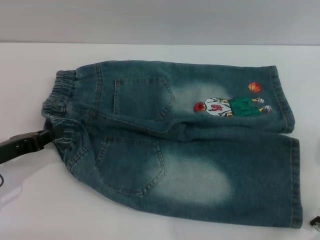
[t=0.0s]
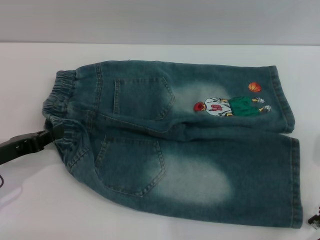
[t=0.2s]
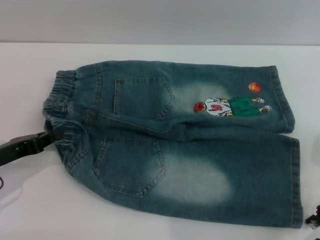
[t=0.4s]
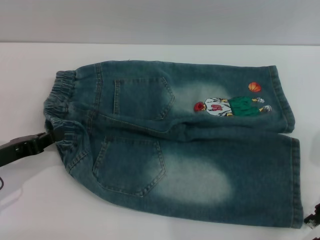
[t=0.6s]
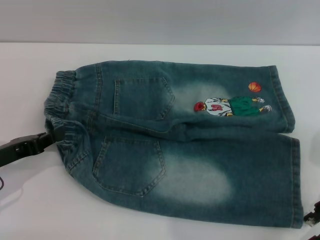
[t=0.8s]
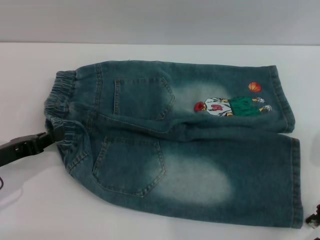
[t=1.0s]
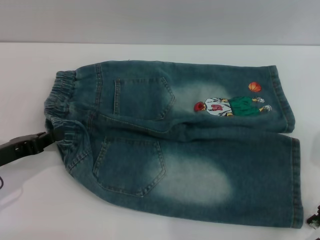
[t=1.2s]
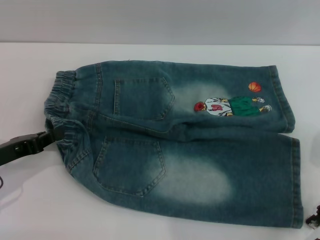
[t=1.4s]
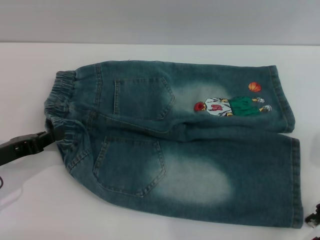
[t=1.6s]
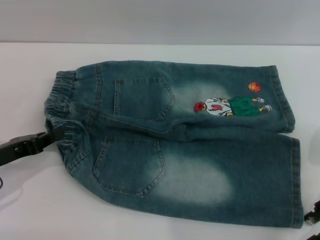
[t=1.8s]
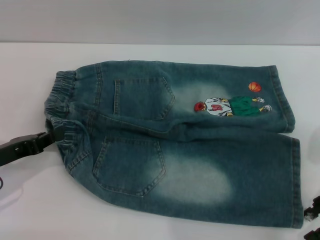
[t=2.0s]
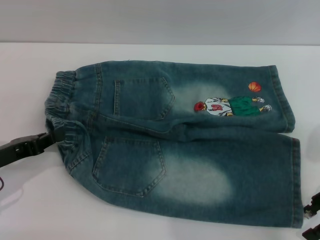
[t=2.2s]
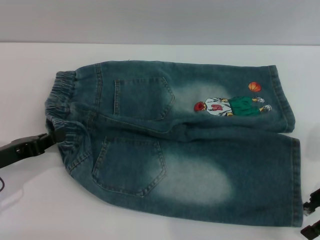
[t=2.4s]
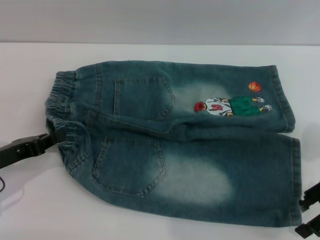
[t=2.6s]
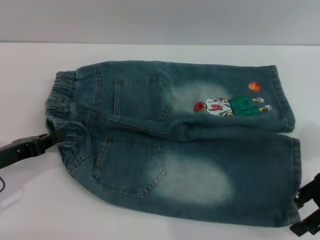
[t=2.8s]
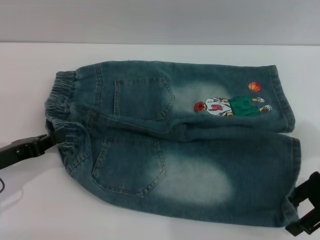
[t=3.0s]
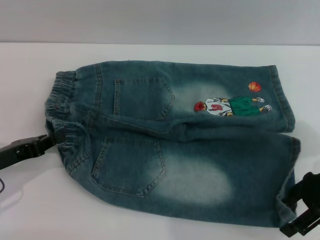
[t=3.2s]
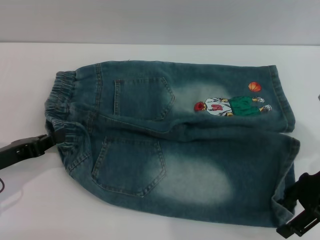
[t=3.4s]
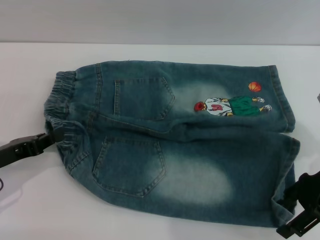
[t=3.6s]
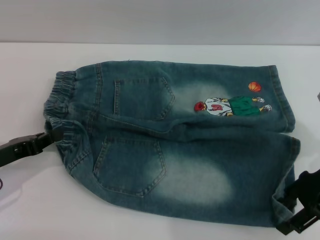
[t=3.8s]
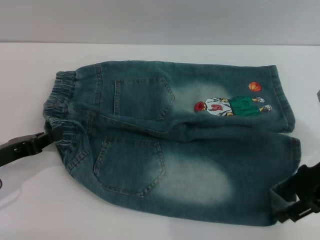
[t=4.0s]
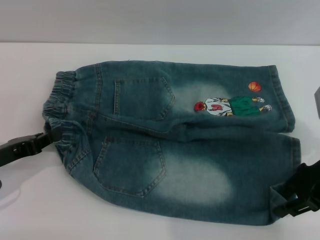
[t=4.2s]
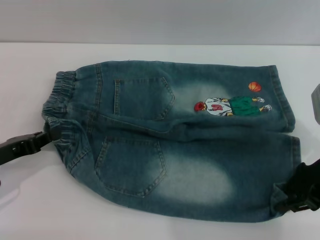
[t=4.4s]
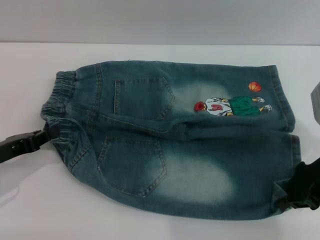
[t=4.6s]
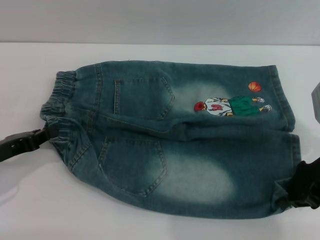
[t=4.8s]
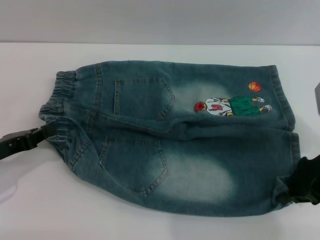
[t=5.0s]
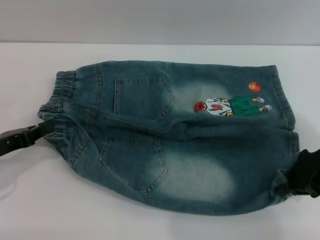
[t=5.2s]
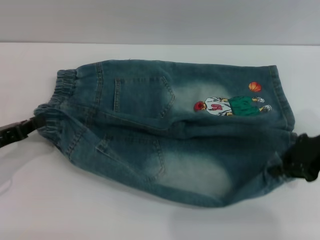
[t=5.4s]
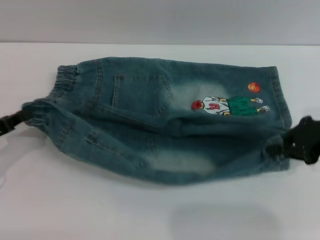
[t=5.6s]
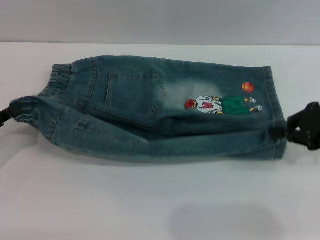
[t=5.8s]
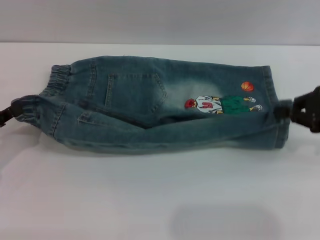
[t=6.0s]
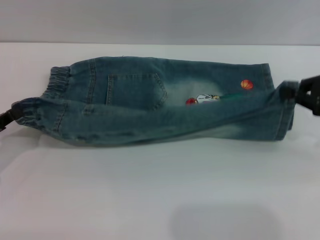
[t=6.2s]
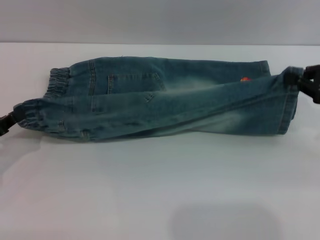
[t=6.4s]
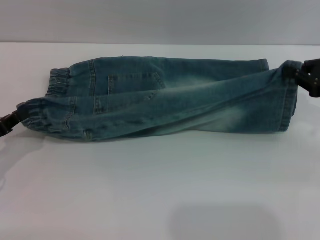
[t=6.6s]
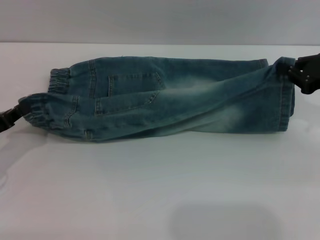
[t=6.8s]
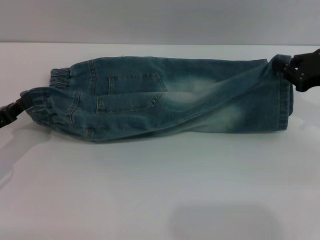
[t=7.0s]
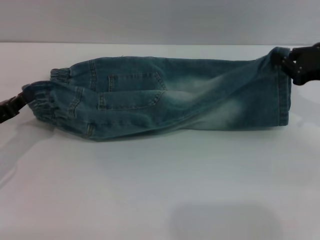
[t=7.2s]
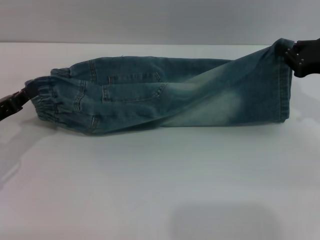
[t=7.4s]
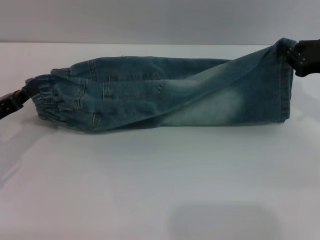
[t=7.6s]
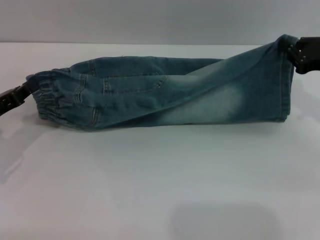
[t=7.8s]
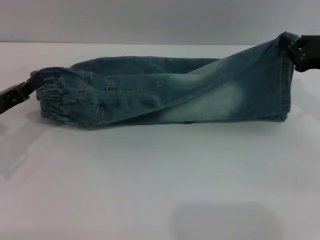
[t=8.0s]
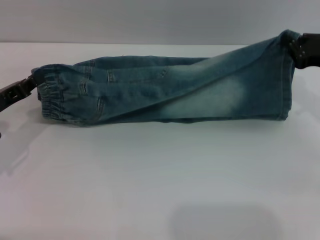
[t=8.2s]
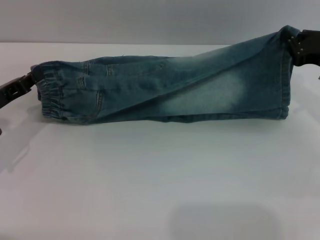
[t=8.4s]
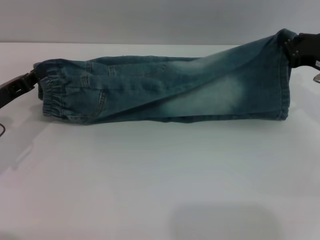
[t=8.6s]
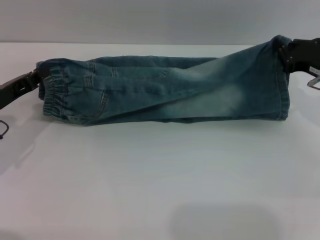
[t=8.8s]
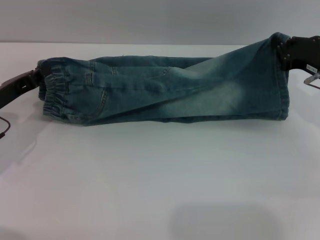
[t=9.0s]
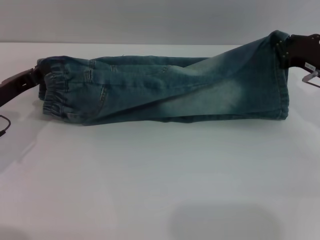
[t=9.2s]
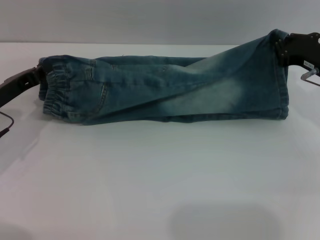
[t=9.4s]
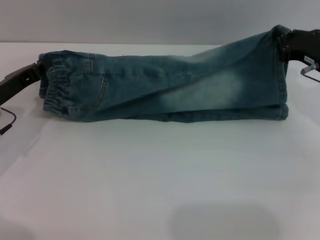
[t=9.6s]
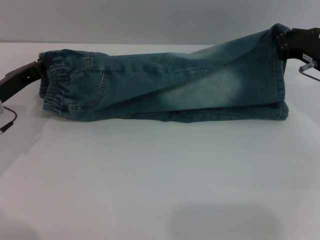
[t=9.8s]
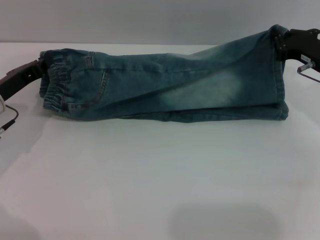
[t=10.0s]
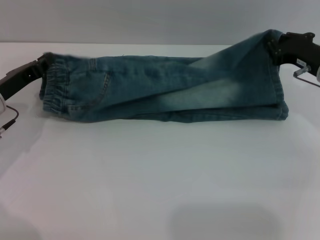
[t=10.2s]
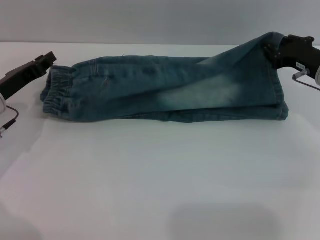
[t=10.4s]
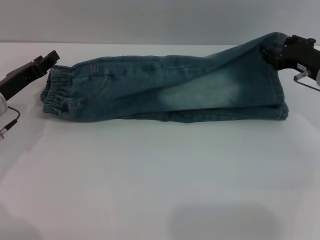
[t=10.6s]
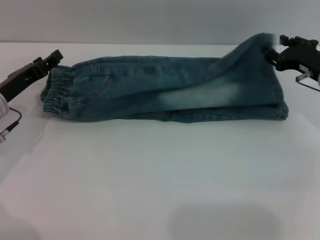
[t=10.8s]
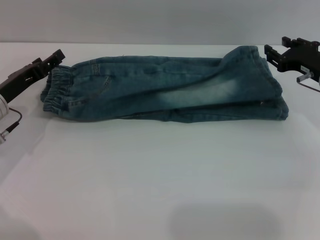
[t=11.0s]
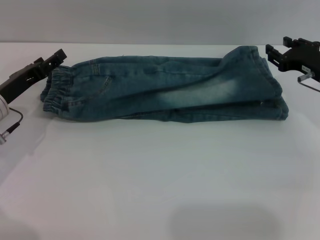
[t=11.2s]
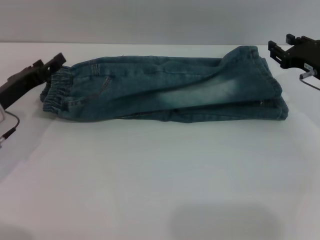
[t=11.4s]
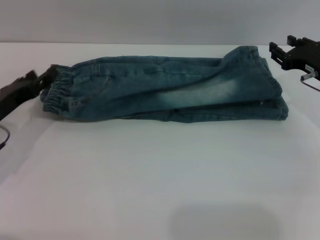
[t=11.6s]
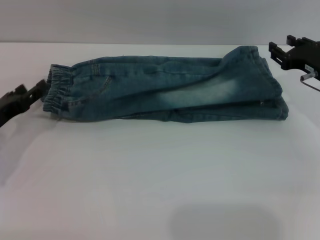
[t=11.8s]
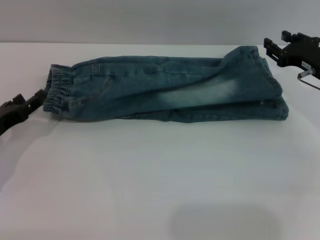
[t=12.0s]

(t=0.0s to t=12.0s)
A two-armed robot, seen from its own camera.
Step, t=0.0s - t=11.2s: Fold the bottom of the pants upward with both grippers.
t=0.0s - t=1.6s: Both grippers stay about where they are.
t=1.6s - t=3.0s: The grippers move only a little.
t=3.0s - t=4.4s: The right gripper closes up.
t=4.4s - t=6.0s: The right gripper heads to the right, covering approximately 5 cm, and closes.
t=7.6s - t=9.0s: The grippers move only a little.
t=9.0s - t=10.4s: The grippers make only small movements.
t=10.4s - t=12.0s: The right gripper opens. The left gripper goes some 5 cm backward, and opens.

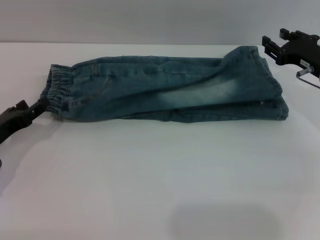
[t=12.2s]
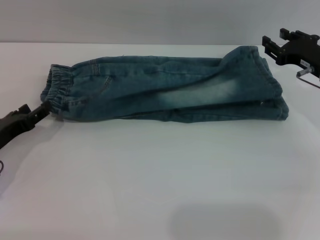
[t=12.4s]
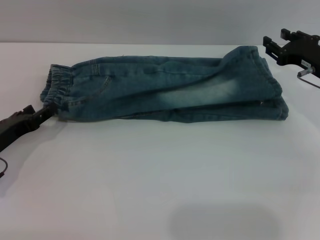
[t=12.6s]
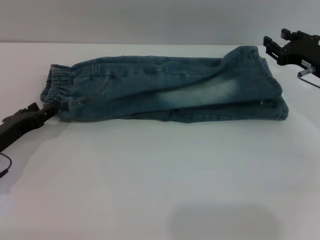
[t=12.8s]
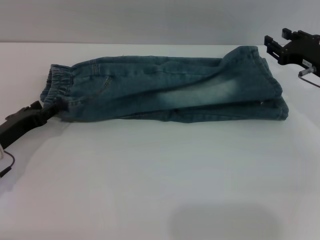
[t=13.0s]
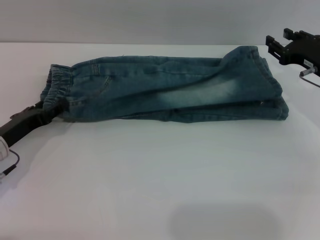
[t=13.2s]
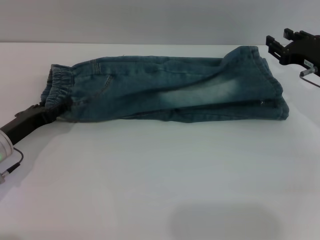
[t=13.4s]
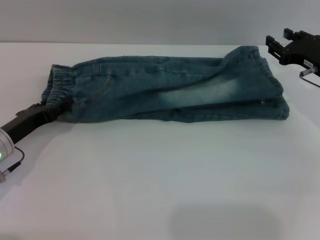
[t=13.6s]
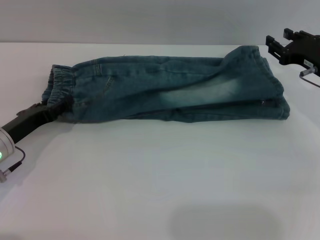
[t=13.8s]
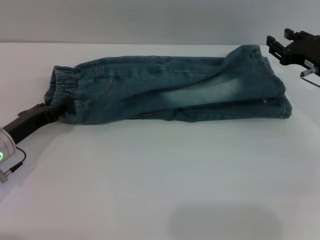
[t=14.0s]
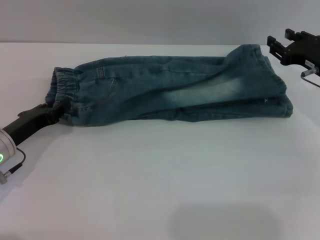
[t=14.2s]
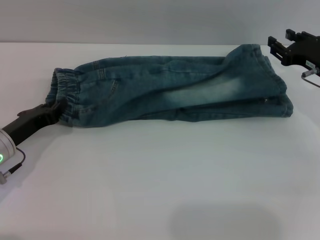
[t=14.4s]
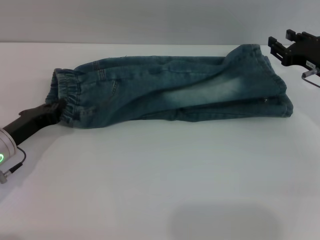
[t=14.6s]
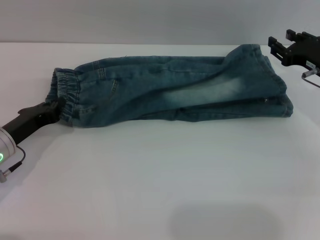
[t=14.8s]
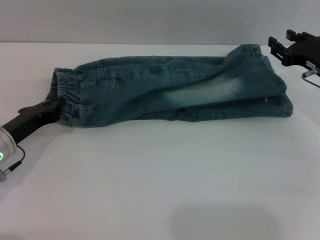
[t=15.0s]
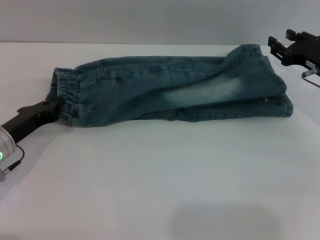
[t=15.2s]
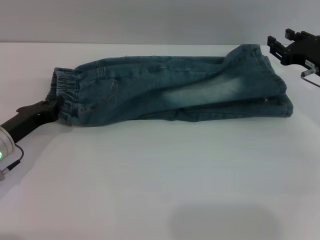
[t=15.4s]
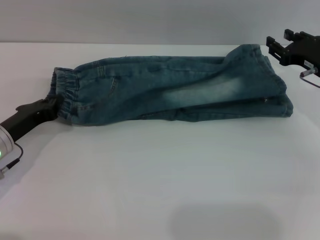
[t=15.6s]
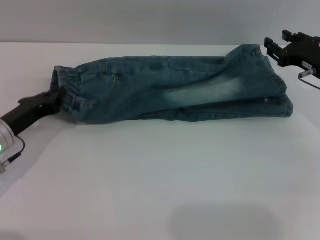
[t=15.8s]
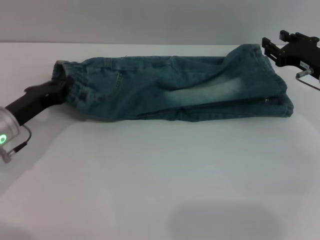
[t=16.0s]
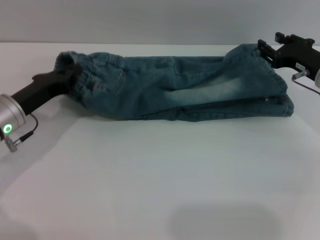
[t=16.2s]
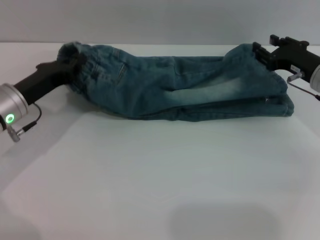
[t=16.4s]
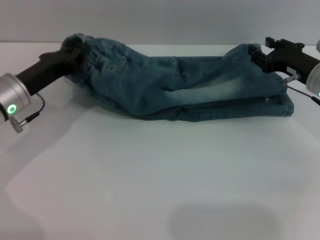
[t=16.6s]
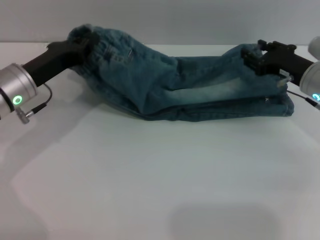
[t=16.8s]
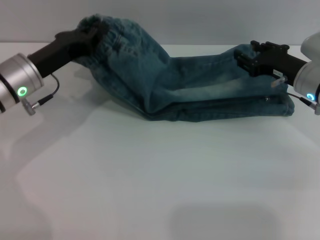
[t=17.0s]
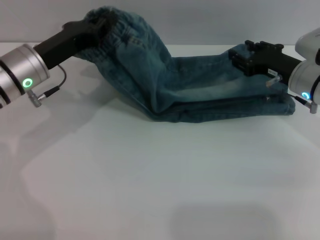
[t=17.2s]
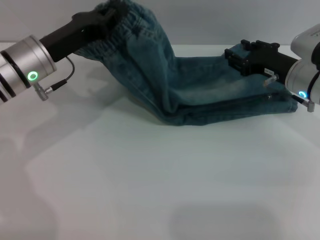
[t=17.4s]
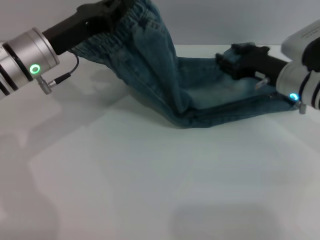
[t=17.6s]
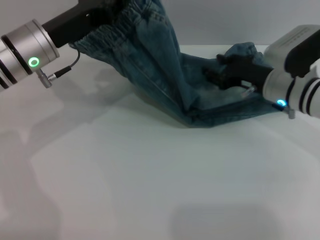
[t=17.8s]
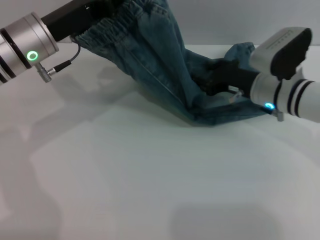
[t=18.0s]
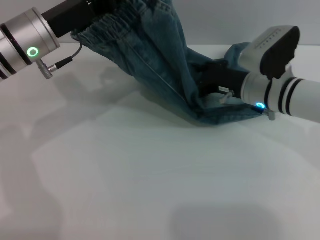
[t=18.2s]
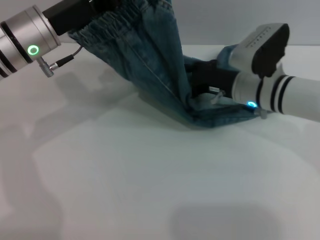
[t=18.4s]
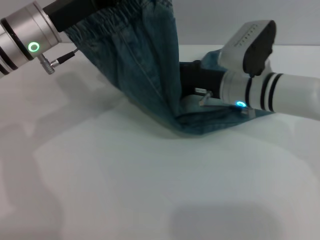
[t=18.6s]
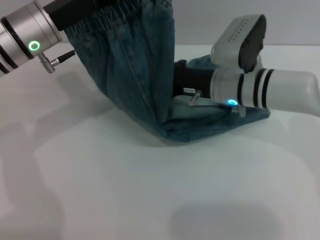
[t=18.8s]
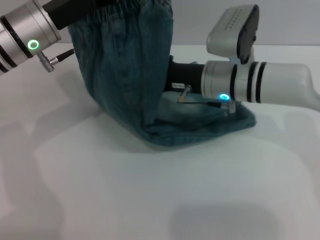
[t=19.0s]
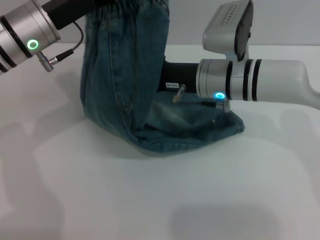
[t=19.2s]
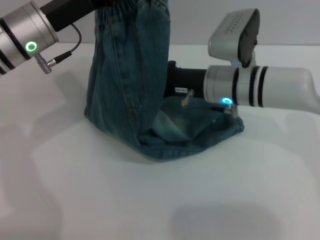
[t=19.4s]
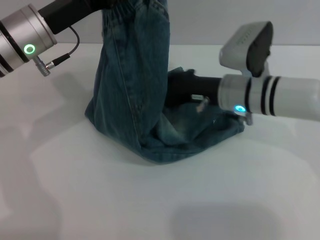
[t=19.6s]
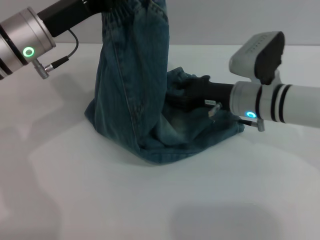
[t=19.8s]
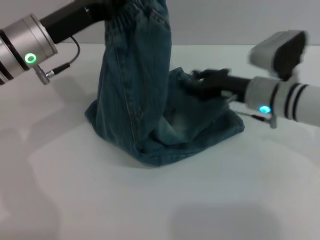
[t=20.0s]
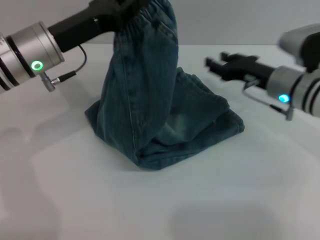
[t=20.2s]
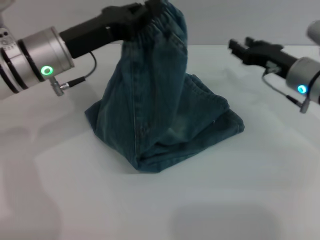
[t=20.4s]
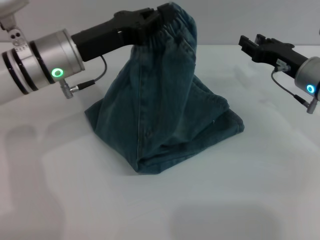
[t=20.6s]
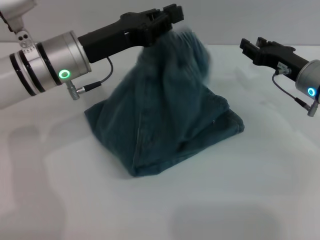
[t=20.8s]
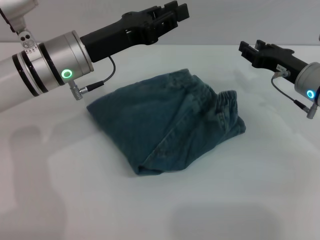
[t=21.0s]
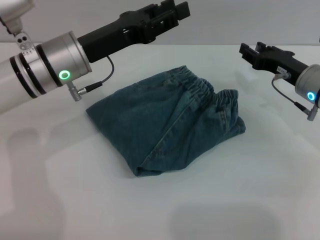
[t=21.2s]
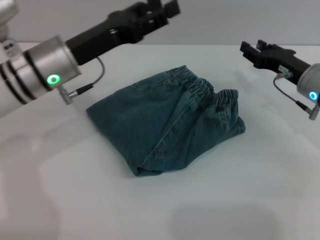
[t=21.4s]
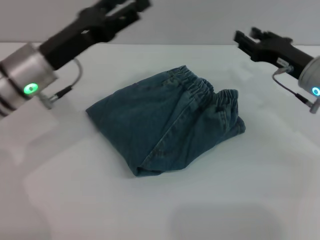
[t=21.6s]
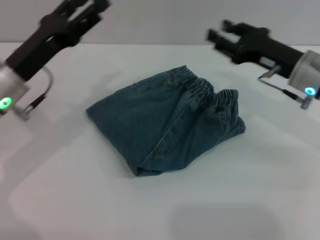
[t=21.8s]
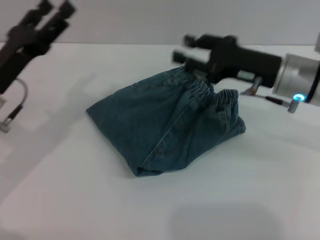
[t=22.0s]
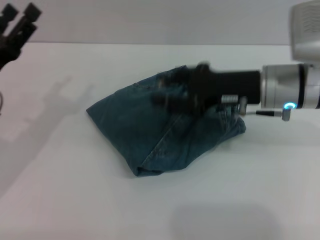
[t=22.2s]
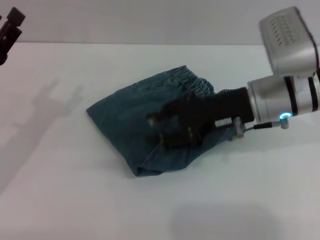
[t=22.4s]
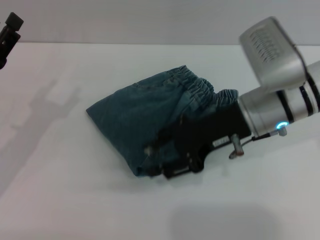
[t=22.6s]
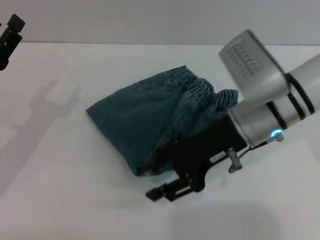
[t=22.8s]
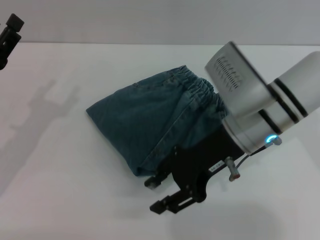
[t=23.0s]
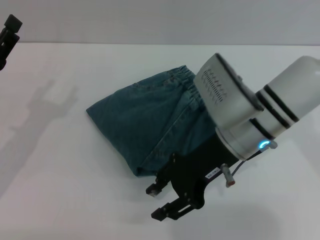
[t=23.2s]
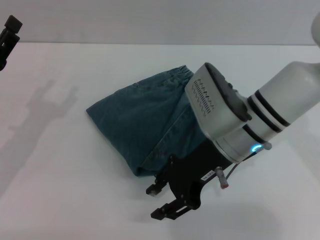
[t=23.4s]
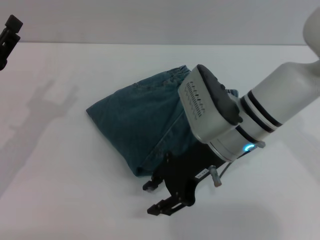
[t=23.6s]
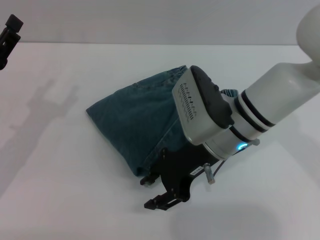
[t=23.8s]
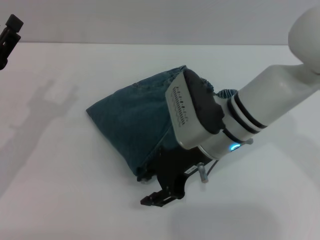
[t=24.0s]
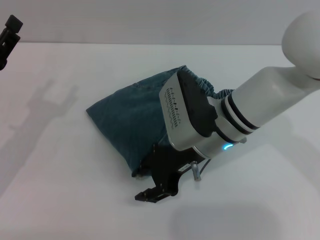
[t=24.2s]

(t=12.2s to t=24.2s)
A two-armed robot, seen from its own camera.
Step, t=12.2s - t=21.2s: Fold the pants from left to right with the left gripper.
t=12.2s - t=13.8s: The grippers stay close to where they were, moving slightly.
t=13.8s - t=15.2s: The left gripper closes its fingers.
t=15.2s - t=16.6s: The left gripper is displaced upward by approximately 5 cm.
t=16.6s - t=18.2s: The left gripper is displaced upward and to the right by some 10 cm, while the right gripper shifts some 10 cm to the left.
t=19.8s - t=21.2s: The left gripper opens. Meanwhile the right gripper goes some 10 cm to the right.
t=21.2s - t=22.6s: The left gripper goes some 15 cm to the left, backward and downward, and opens; the right gripper travels to the left, upward and backward by about 15 cm.
t=22.6s - t=24.2s: The right gripper goes roughly 5 cm to the left.
